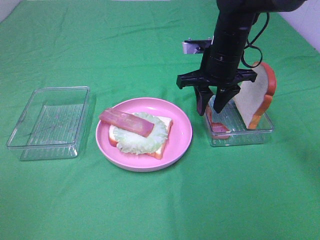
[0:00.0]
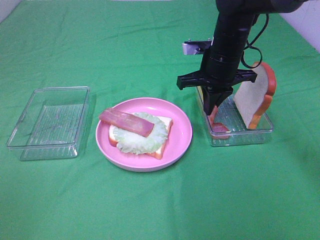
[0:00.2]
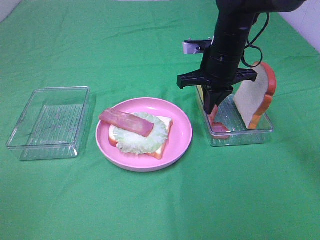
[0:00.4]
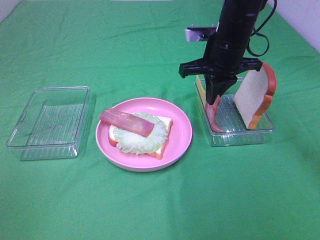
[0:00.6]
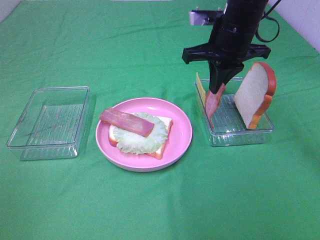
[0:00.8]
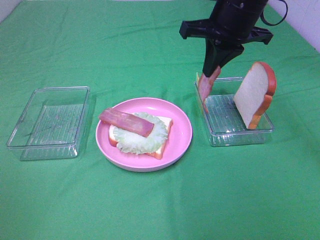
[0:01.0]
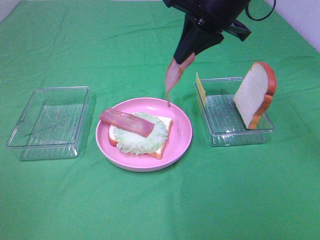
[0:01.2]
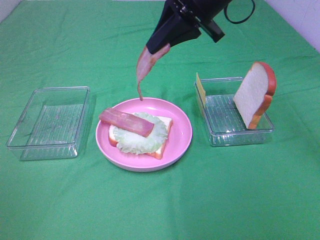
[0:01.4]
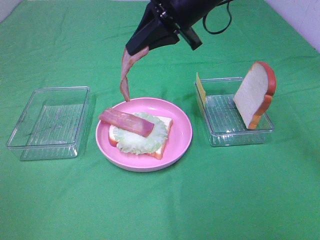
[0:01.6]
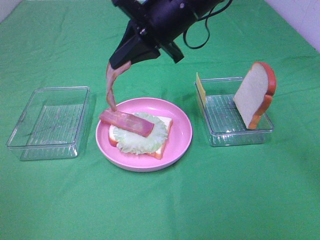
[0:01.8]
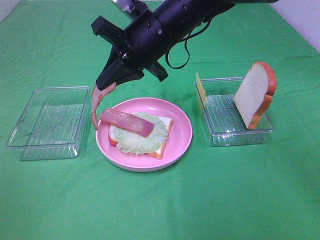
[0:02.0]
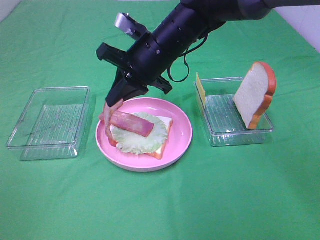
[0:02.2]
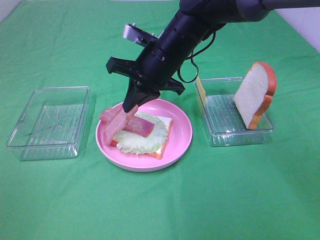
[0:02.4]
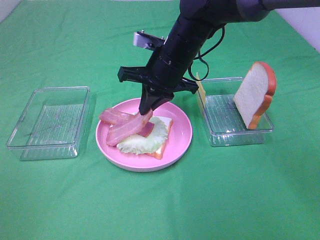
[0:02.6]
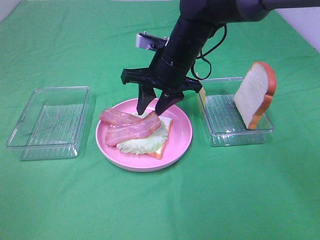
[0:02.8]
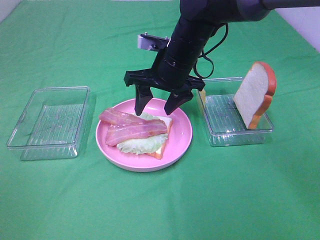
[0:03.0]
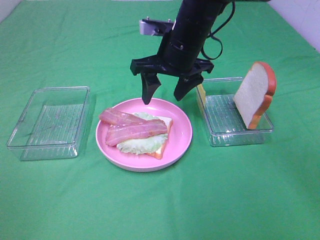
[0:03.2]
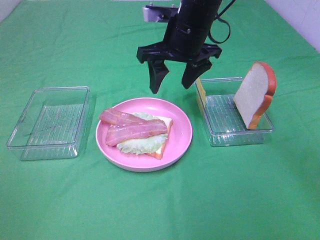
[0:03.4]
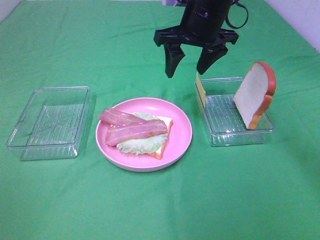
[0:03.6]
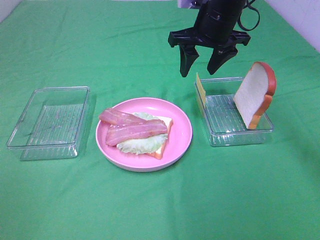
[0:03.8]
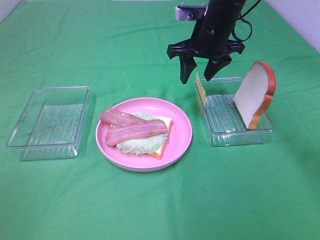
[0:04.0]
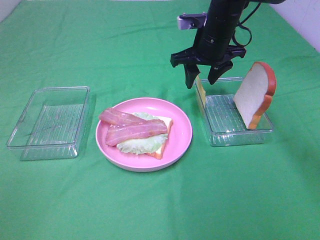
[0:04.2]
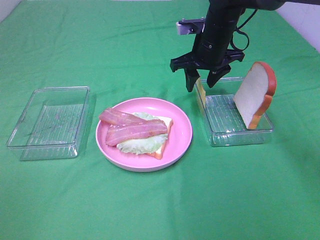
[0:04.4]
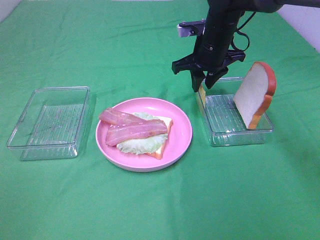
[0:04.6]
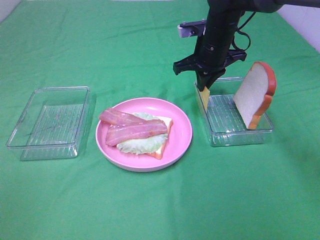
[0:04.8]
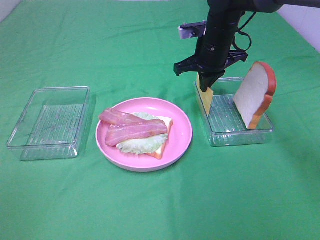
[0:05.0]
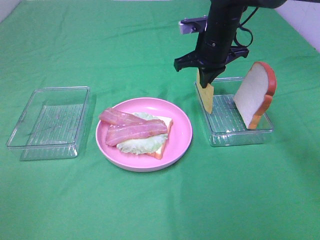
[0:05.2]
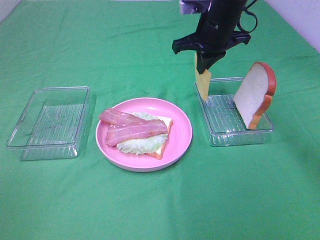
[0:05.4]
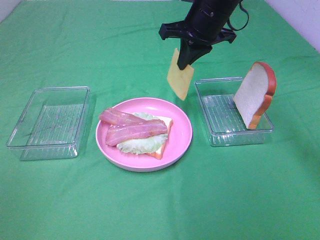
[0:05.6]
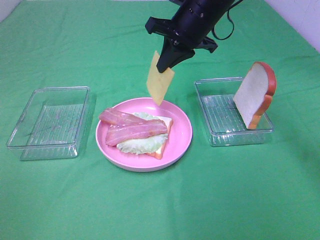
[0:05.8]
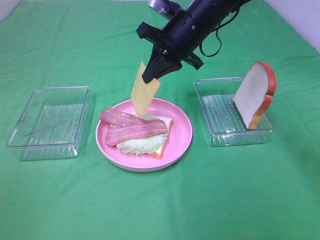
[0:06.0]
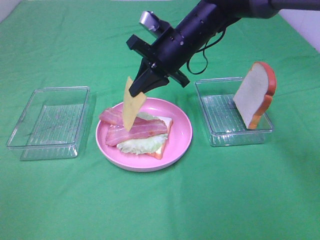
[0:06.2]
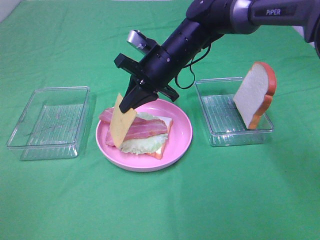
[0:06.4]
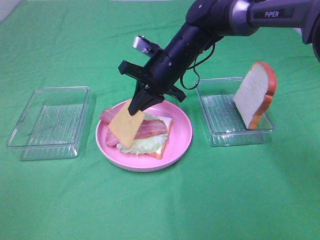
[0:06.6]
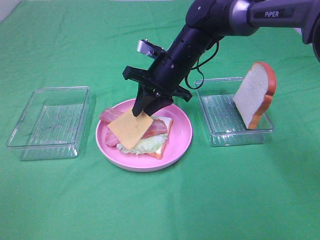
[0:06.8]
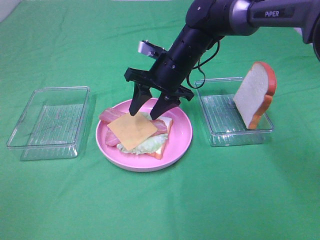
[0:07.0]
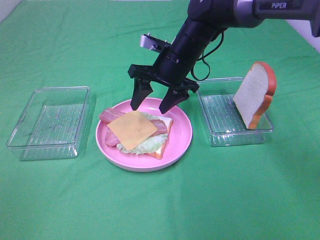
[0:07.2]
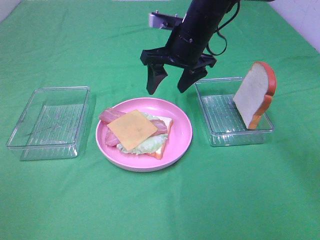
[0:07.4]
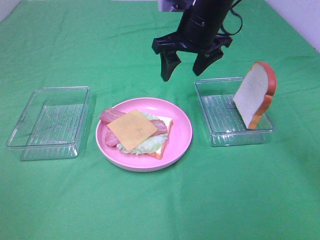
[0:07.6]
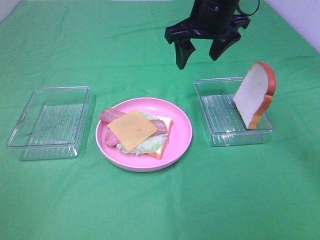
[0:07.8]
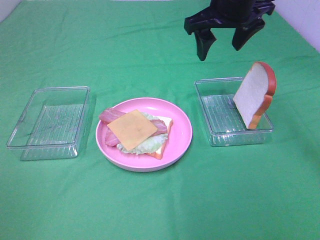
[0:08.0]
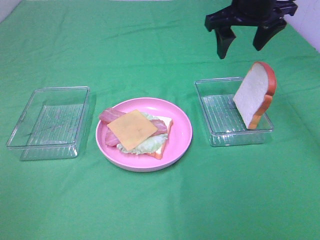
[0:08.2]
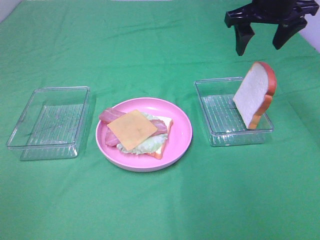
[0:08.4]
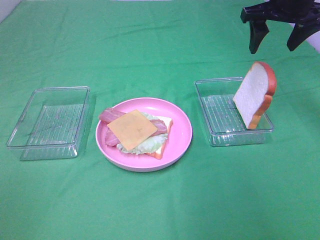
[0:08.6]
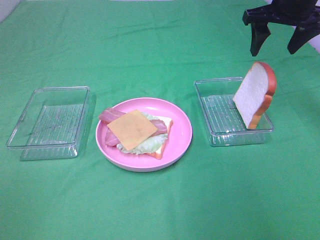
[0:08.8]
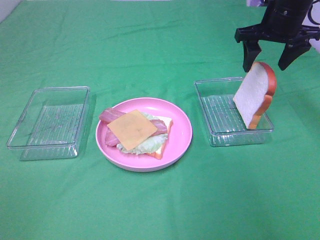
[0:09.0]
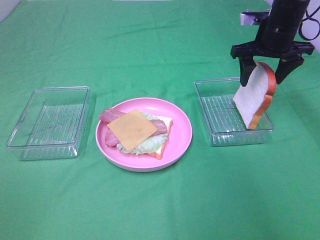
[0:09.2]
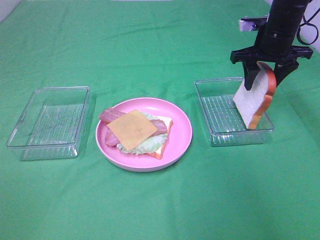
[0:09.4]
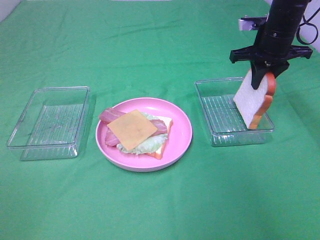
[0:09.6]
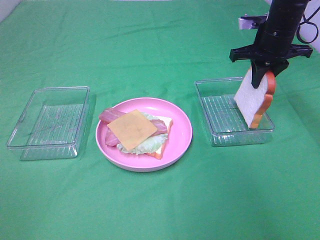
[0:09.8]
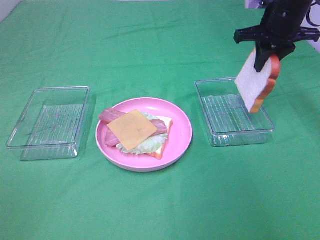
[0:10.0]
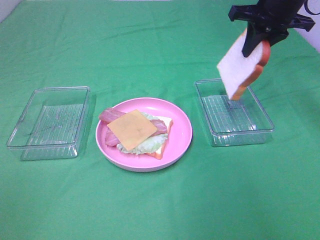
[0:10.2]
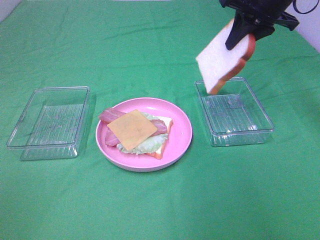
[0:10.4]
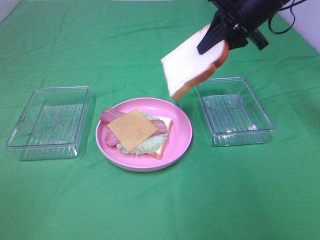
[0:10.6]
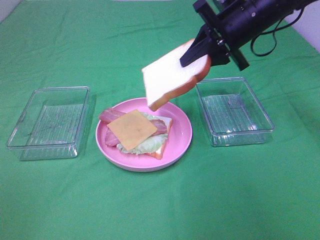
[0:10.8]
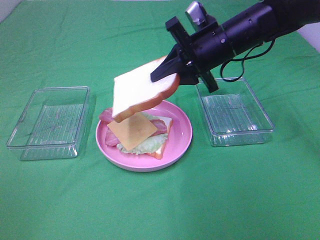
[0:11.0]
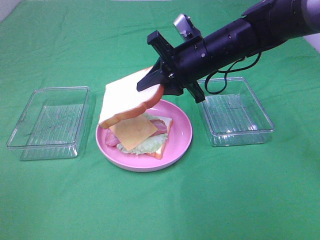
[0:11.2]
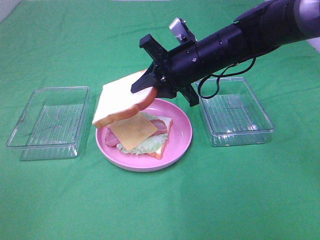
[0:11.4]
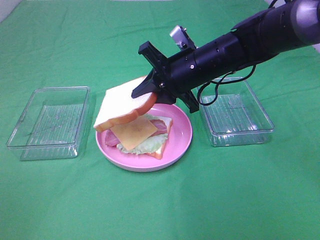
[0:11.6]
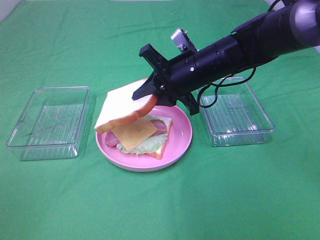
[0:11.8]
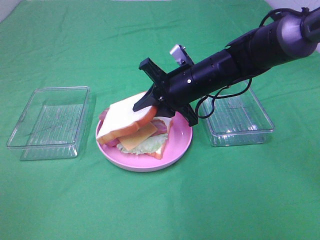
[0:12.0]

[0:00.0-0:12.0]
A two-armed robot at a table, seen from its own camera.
Task of the whole recording: Make sandwiches.
Step, 0:00.4 to 0:02.8: Right hand:place bacon on bacon.
Step, 0:03.0 to 0:05.0: Right hand:grab the cheese slice.
Step, 0:05.2 to 0:07.0: Right hand:place the cheese slice on top of the bacon.
Step, 0:07.2 to 0:09.6: Right hand:grab the bread slice.
0:00.0 to 0:01.6: The right gripper heads upward and to the left, covering some 15 cm, and closes.
0:01.6 to 0:03.0: The right gripper shifts about 10 cm downward, and opens up.
0:03.0 to 0:04.4: The right gripper shifts roughly 10 cm forward and to the right.
0:04.4 to 0:06.0: The right gripper moves roughly 5 cm, and closes.
0:06.0 to 0:07.6: The right gripper reaches approximately 5 cm downward, then returns, and opens its fingers.
0:07.6 to 0:09.0: The right gripper heads to the right, covering approximately 15 cm.
0:09.0 to 0:10.4: The right gripper moves approximately 5 cm, and closes its fingers.
0:10.4 to 0:12.0: The right gripper moves downward, to the left and backward, some 20 cm.

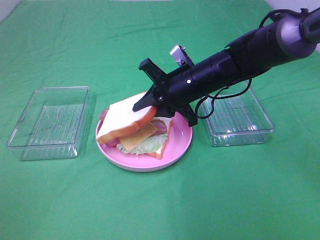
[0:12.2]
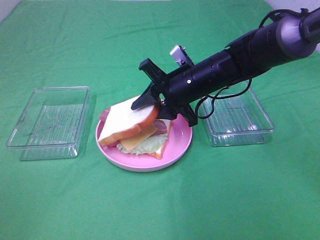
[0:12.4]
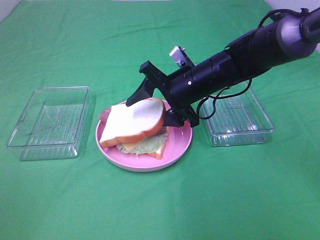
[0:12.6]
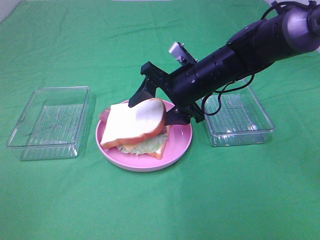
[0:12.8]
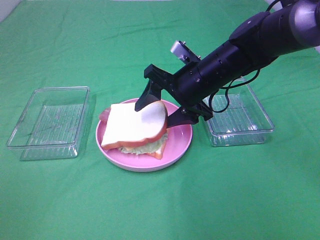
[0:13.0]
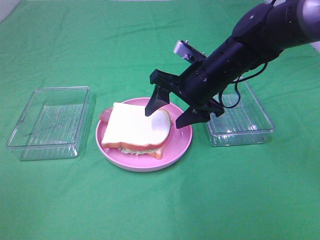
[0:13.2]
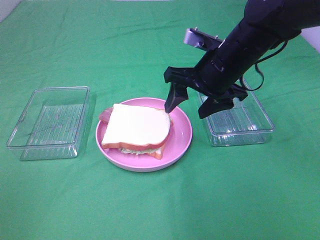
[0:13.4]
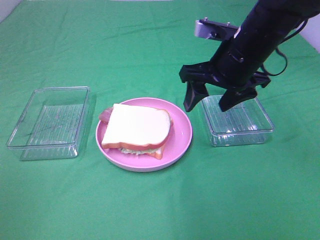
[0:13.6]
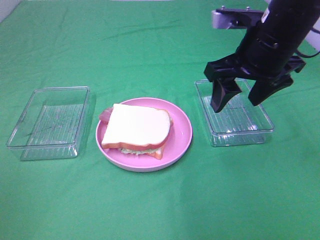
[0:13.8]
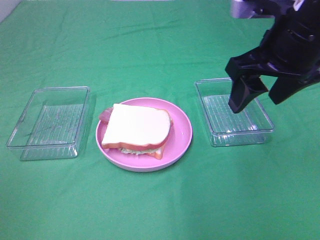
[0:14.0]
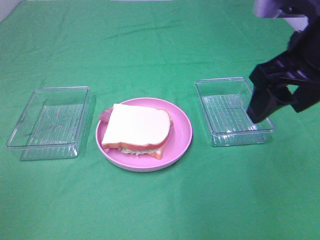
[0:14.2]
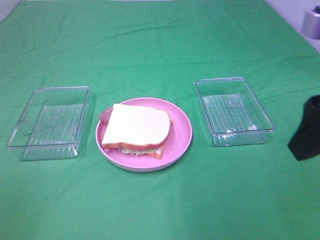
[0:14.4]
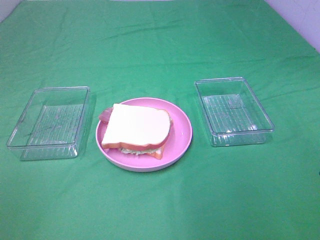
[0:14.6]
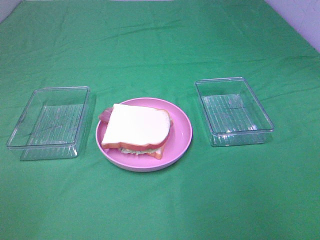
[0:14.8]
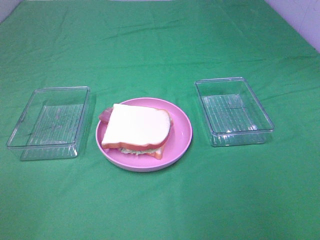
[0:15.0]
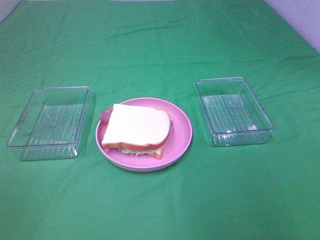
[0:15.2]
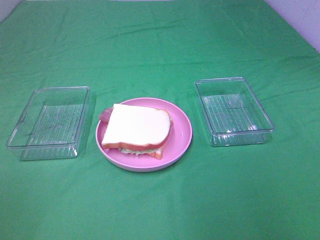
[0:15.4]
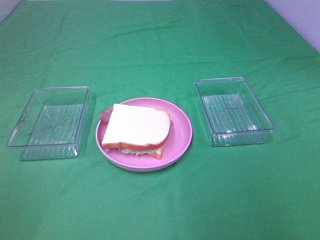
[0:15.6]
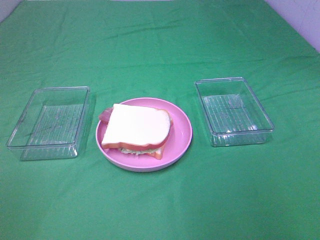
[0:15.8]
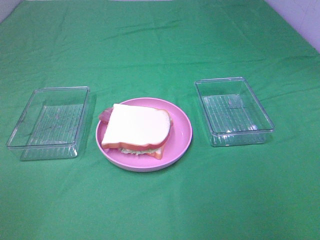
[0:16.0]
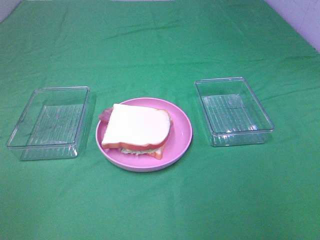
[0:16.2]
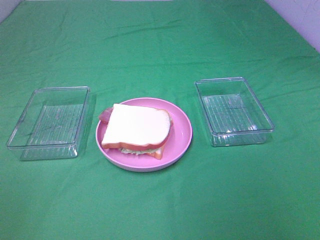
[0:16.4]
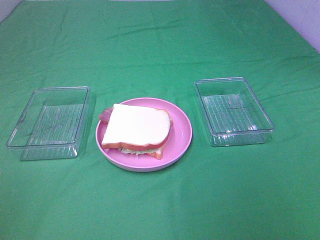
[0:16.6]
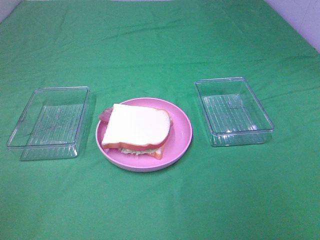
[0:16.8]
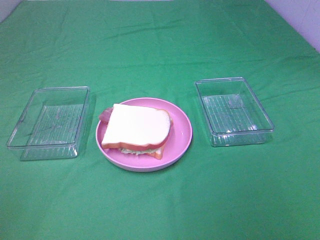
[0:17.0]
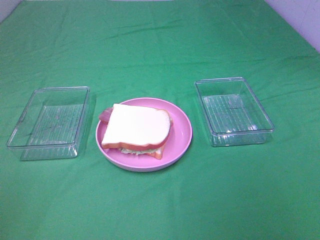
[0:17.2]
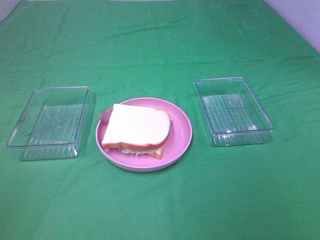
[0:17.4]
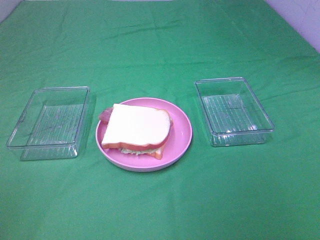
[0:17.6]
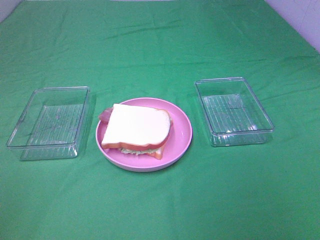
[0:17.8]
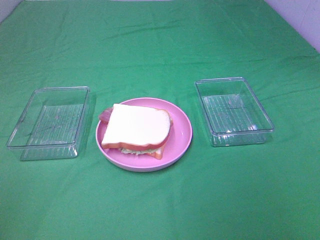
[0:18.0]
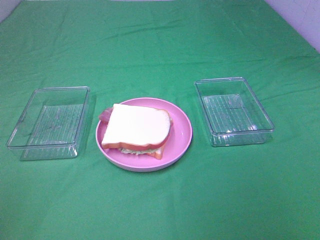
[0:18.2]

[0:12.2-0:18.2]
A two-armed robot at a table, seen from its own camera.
Task of the whole recording: Make sandwiches.
0:12.2 to 0:13.8: The right gripper is displaced upward, to the right and backward by about 15 cm, and opens up.
0:13.8 to 0:15.2: The right gripper is displaced backward and to the right by roughly 30 cm.
